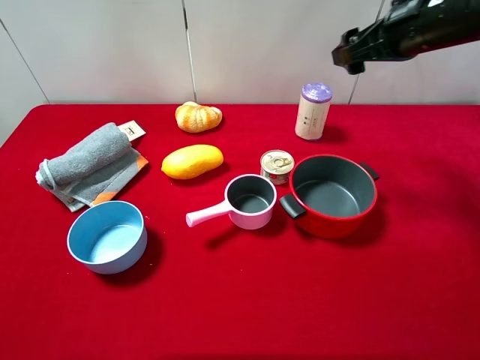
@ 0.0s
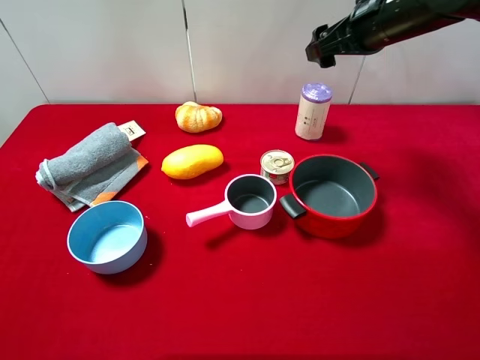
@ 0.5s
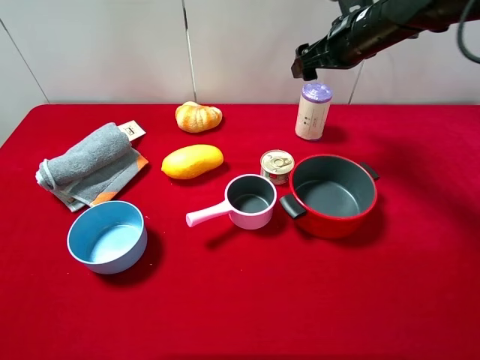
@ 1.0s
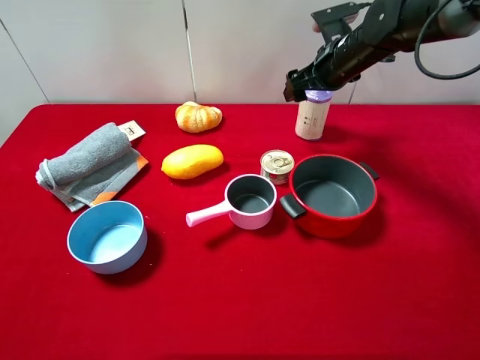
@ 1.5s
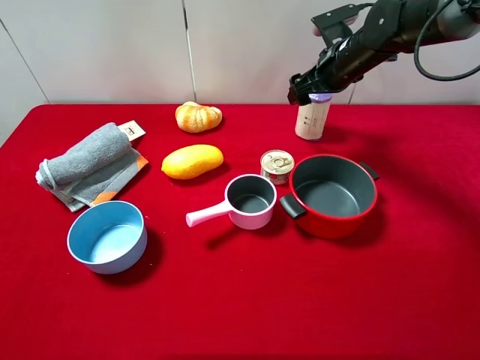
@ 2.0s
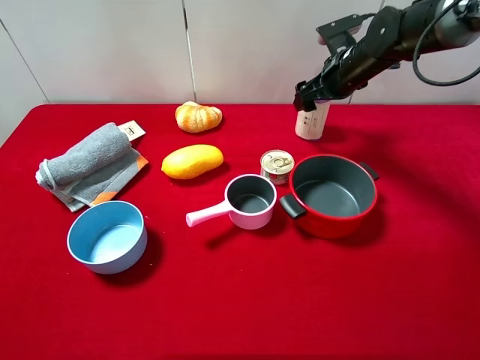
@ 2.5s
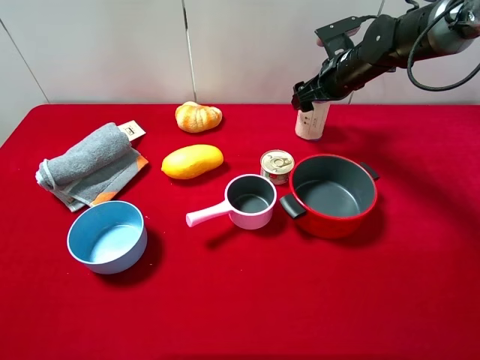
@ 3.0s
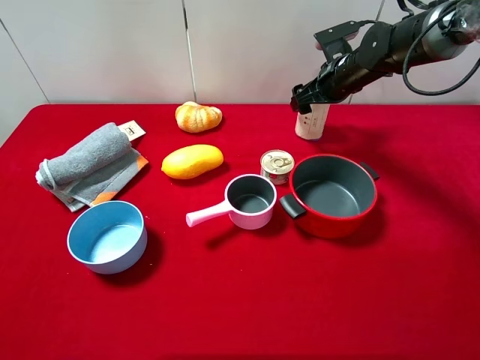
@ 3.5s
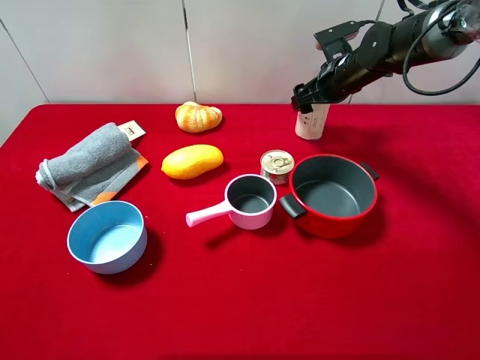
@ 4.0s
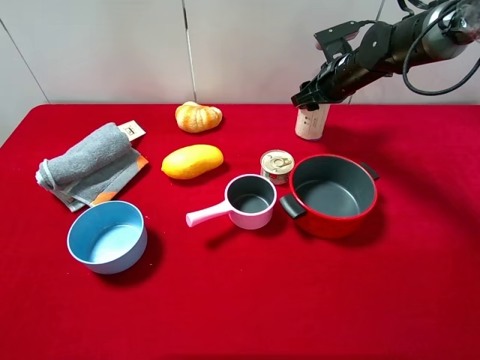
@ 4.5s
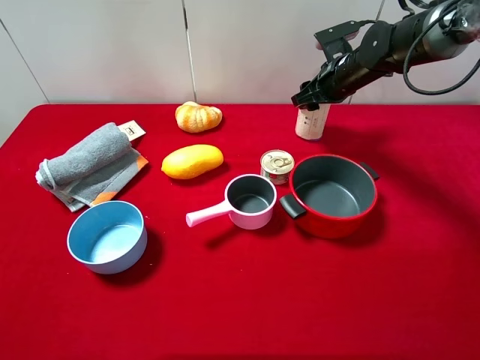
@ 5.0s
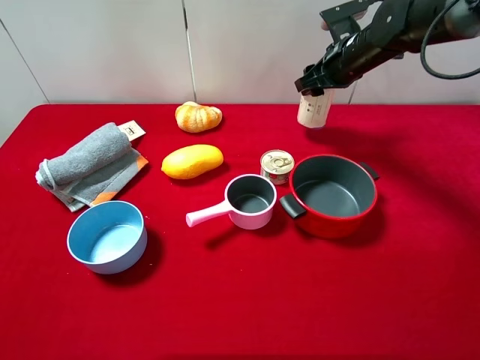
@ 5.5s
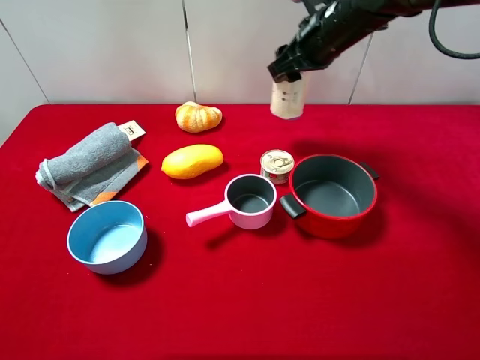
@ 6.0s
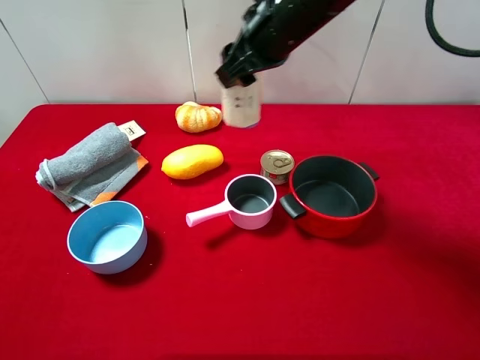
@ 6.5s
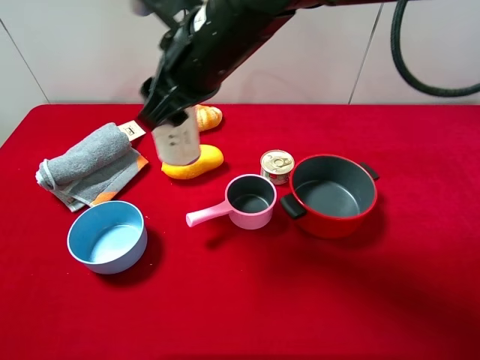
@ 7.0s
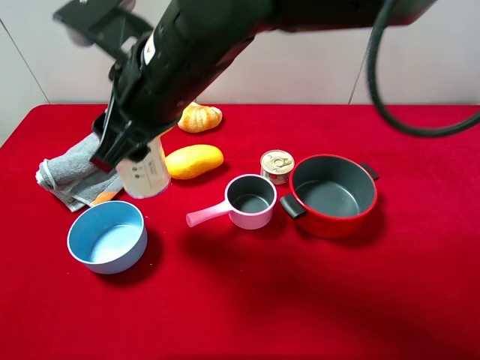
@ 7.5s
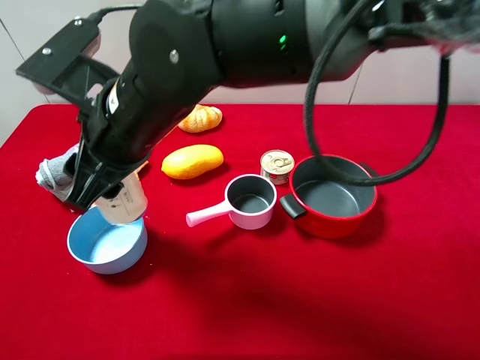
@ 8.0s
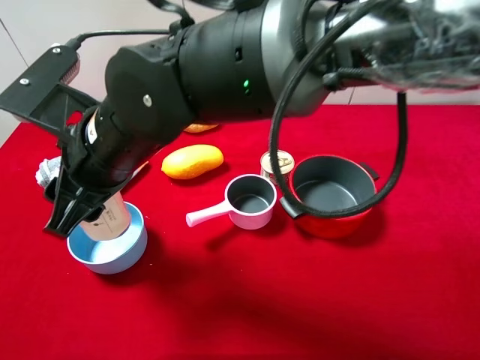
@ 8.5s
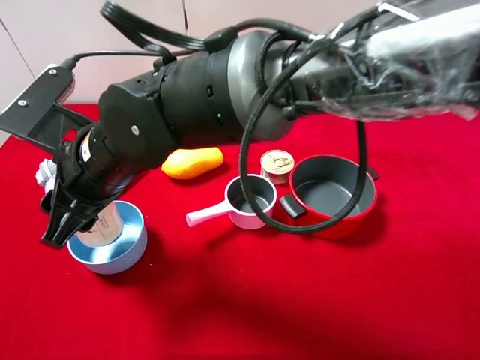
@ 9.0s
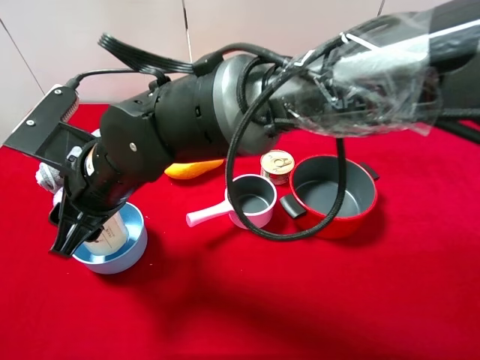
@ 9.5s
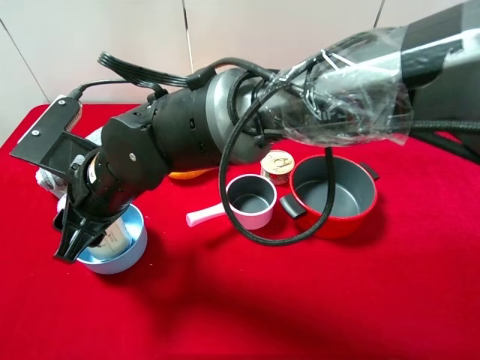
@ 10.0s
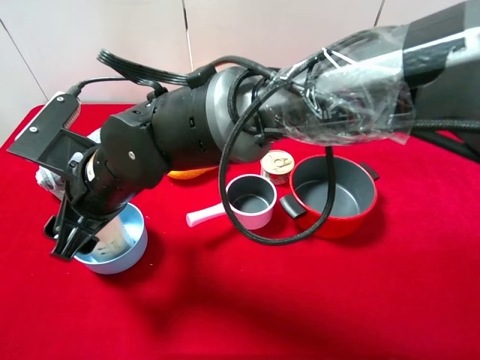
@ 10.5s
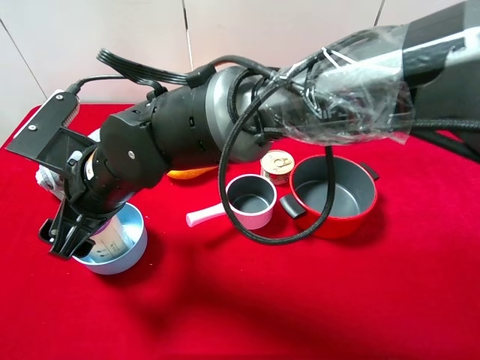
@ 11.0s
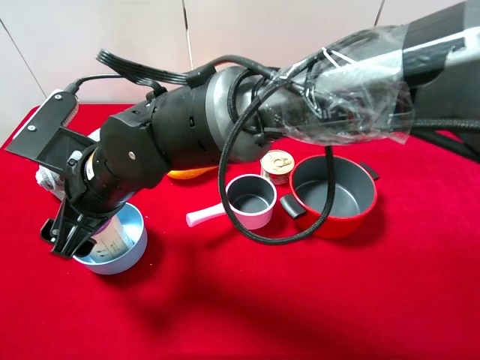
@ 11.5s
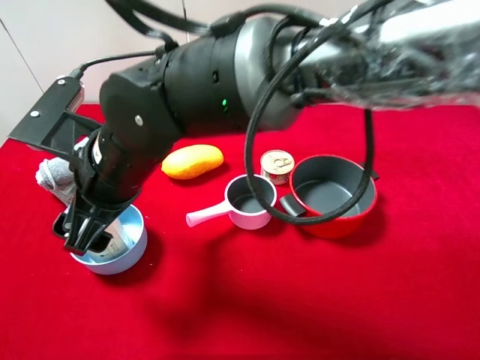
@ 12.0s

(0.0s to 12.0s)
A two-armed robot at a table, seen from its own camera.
Task of the whole recording: pick up an item with a gripper and place it in a random container on the desktop.
0.0s - 2.0s: The right gripper shifts about 15 cm forward and downward.
2.0s - 4.0s: The right gripper closes.
4.0s - 6.0s: The right gripper moves upward, to the left and backward, some 15 cm, and closes.
6.0s - 8.0s: The right gripper shifts some 30 cm to the left and backward.
8.0s - 10.0s: The right gripper shifts approximately 5 cm downward.
10.0s - 12.0s: The right gripper opens.

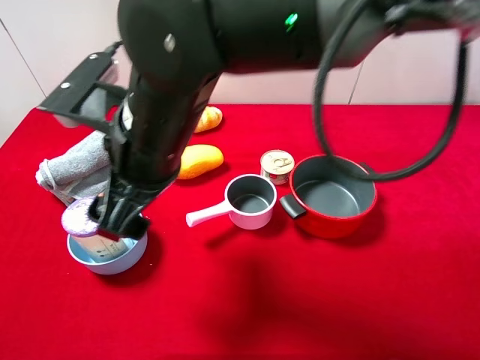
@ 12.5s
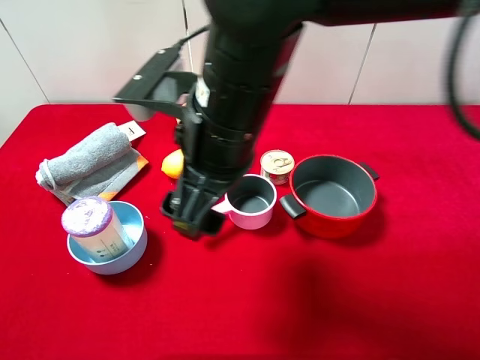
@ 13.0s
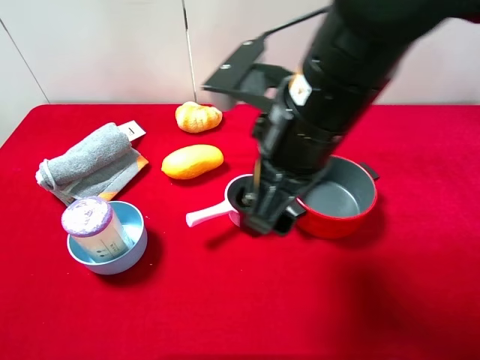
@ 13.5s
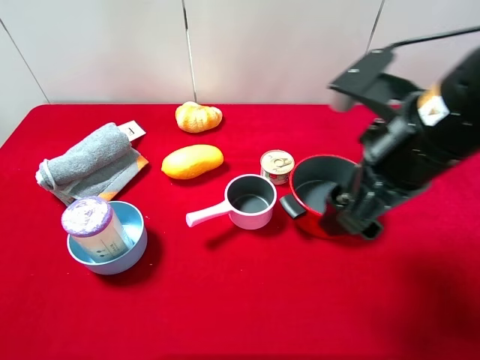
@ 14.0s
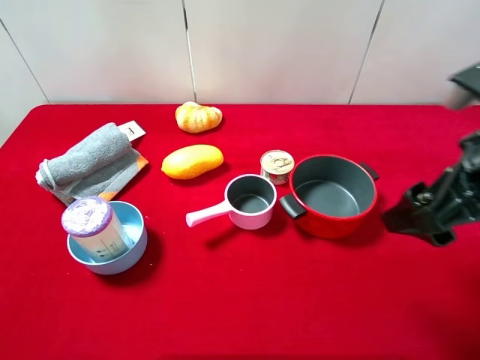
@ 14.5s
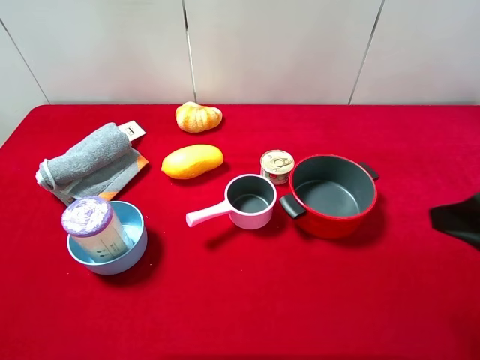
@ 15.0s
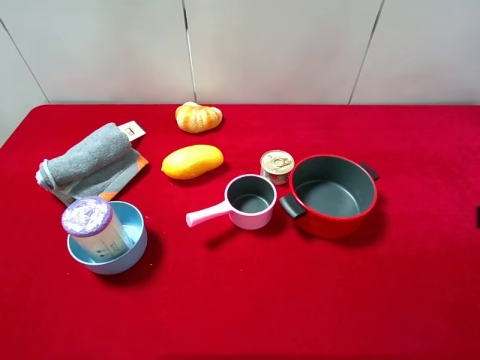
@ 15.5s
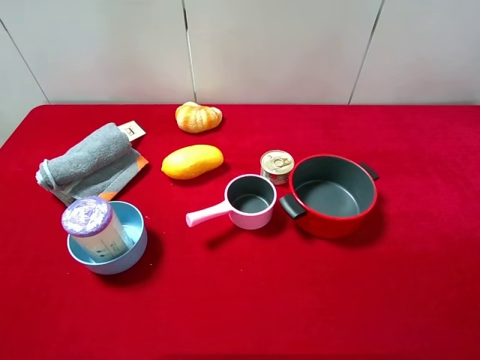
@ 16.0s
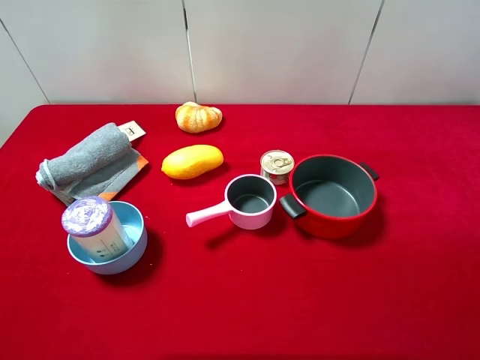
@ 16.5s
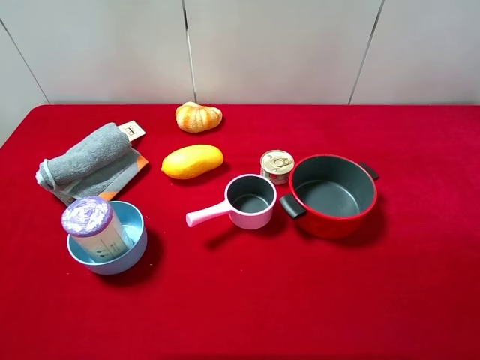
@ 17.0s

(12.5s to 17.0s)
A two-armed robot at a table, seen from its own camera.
Task of the whole recording: pick up an item with a gripper and place it in a random container on the desktop.
12.5s - 14.5s: The right gripper shifts approximately 30 cm to the right.
14.5s - 17.0s: The right gripper goes some 15 cm backward and to the right.

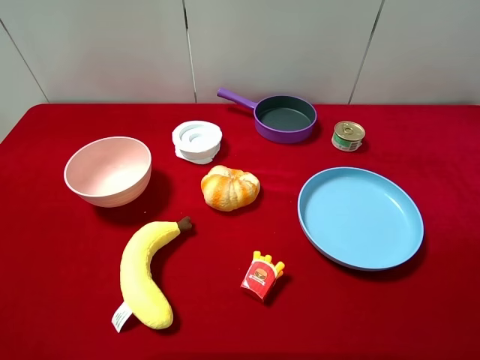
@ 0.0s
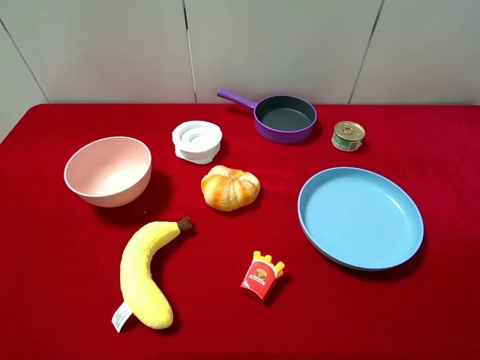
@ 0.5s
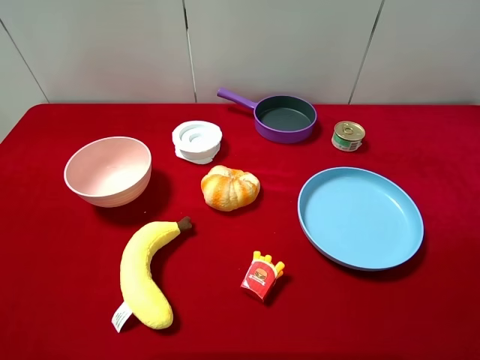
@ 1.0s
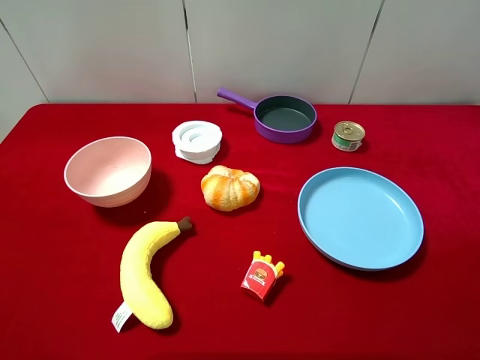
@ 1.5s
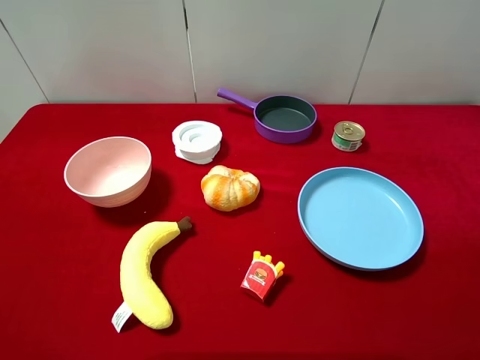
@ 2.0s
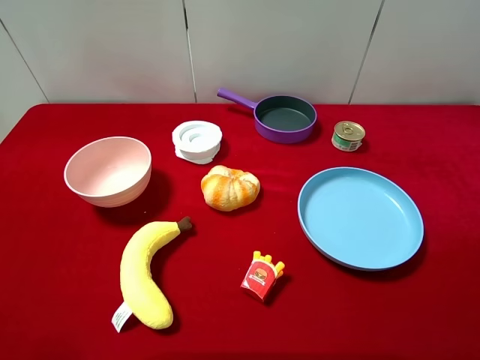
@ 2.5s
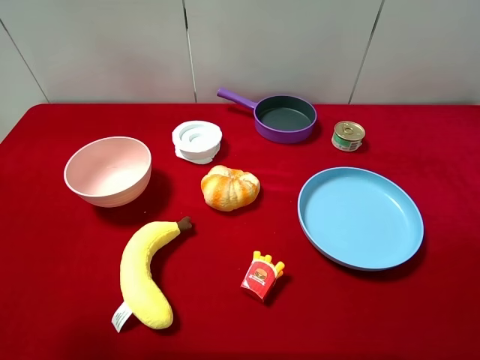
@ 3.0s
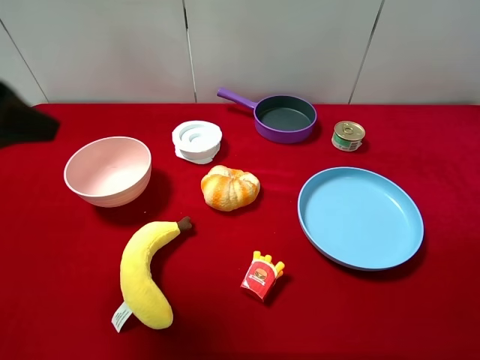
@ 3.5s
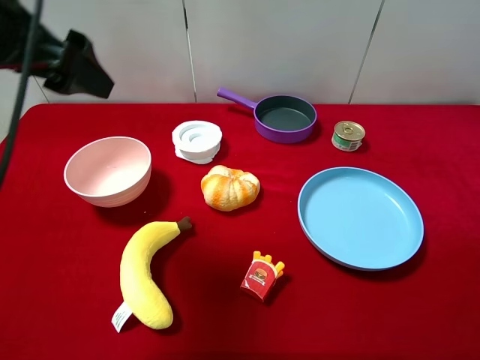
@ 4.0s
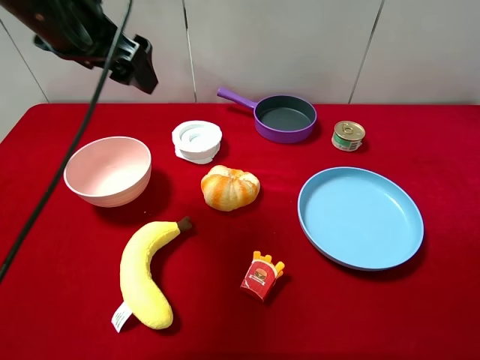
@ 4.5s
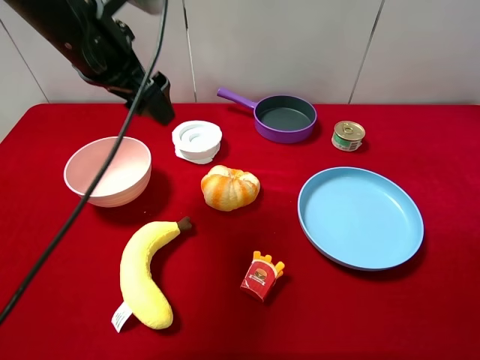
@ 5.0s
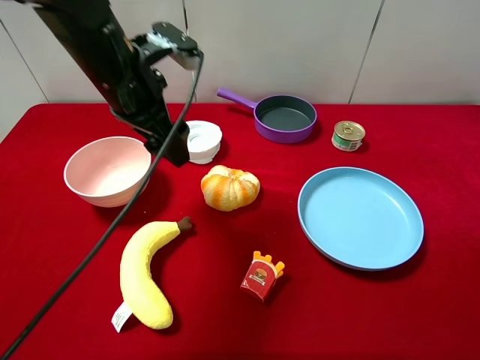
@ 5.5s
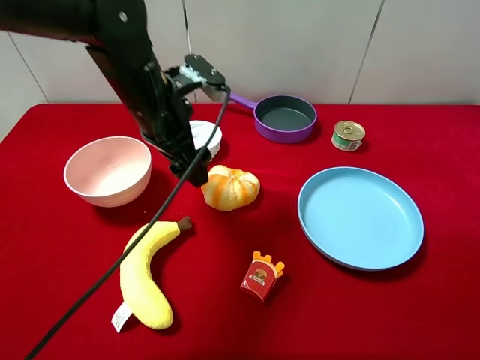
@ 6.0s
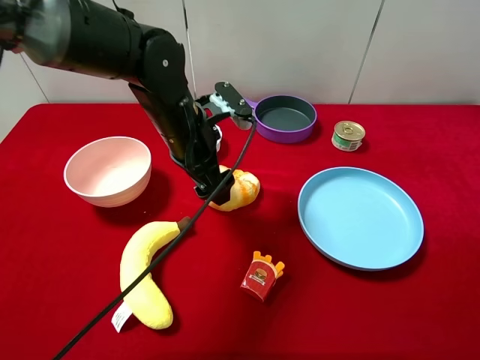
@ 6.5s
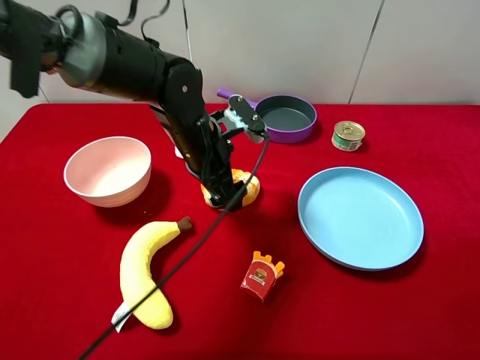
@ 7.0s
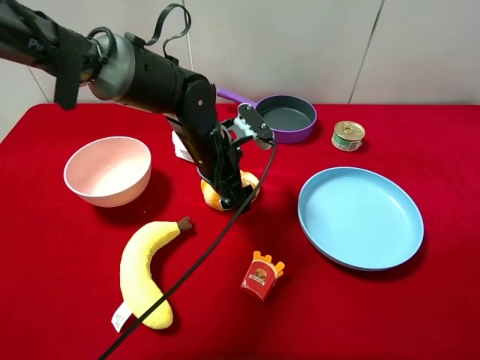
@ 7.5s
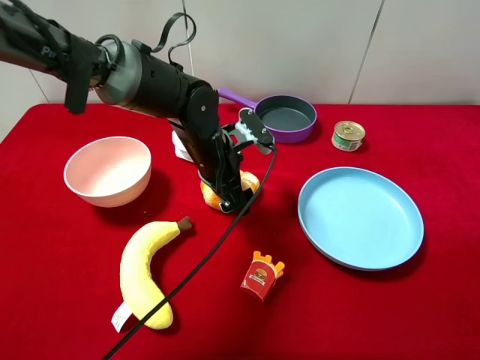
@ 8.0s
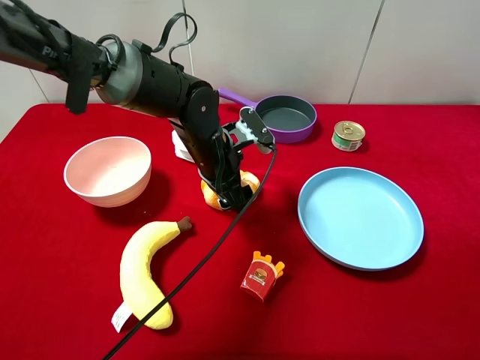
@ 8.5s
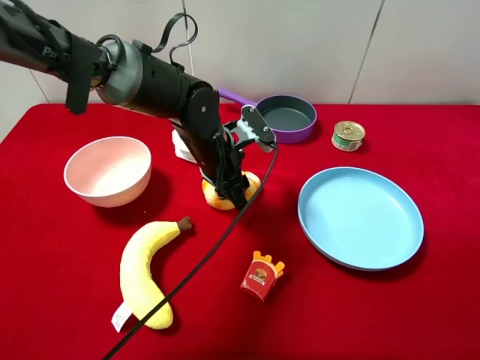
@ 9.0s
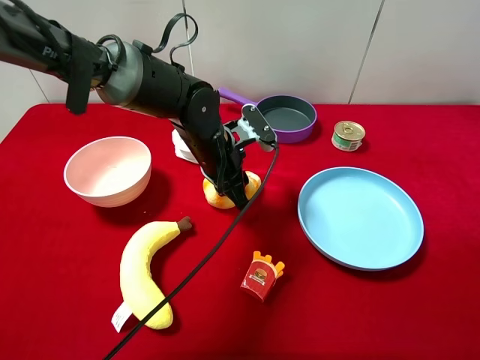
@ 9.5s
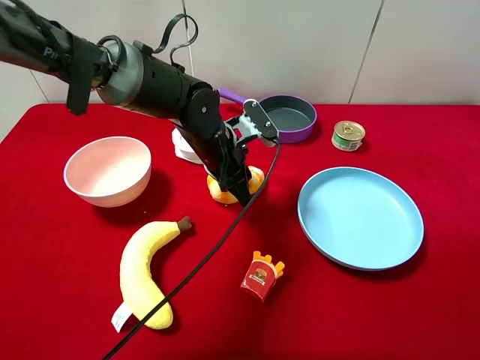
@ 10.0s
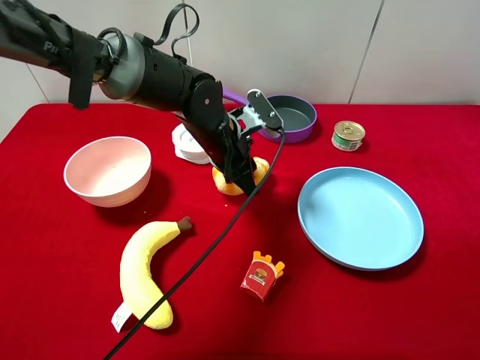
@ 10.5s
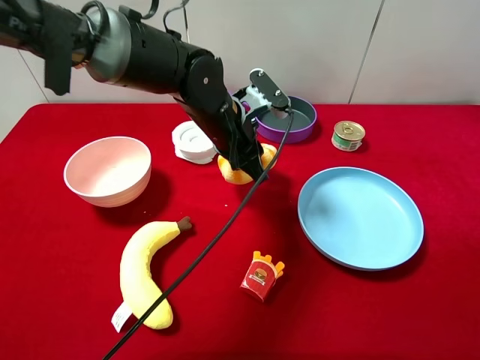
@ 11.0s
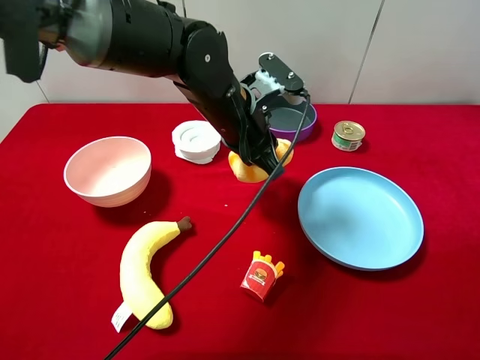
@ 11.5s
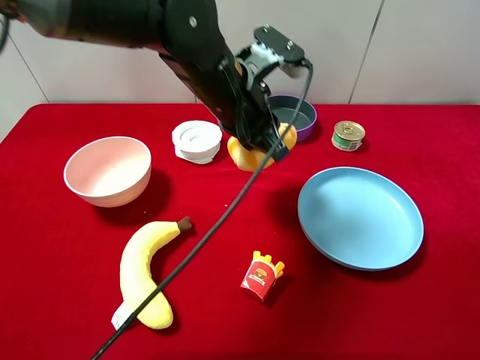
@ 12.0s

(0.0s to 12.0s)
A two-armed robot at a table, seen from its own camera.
Task of the whole recording: pick up an item with a gripper and place it in a random container on the desktop.
0.0s - 2.0s: Neither gripper changes place.
2.0s - 4.0s: The left gripper moves forward and to the right, some 25 cm.
4.0s - 6.0s: The left gripper shifts roughly 20 cm downward, to the right and forward.
6.0s - 8.0s: The left gripper shifts approximately 10 cm downward and to the right.
8.0s - 10.0s: The left gripper closes.
10.0s - 12.0s: The left gripper travels upward by about 10 cm.
